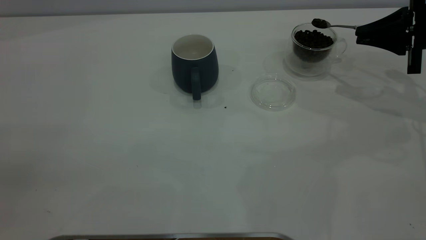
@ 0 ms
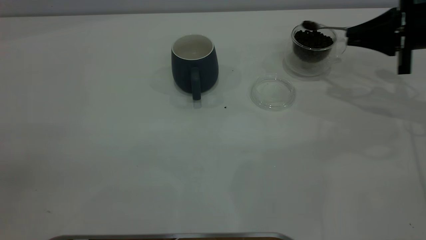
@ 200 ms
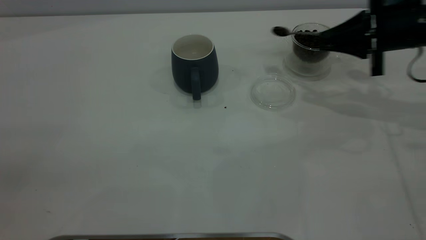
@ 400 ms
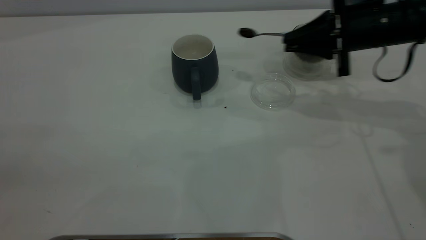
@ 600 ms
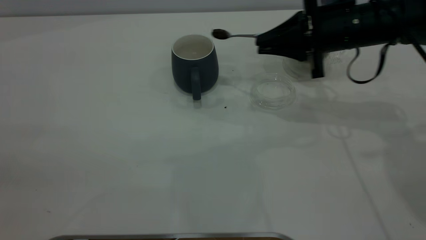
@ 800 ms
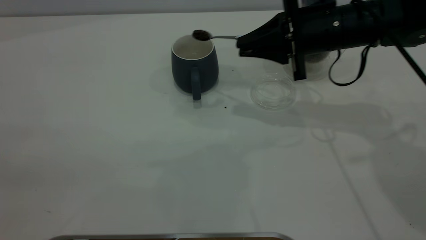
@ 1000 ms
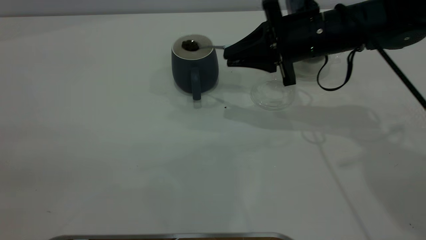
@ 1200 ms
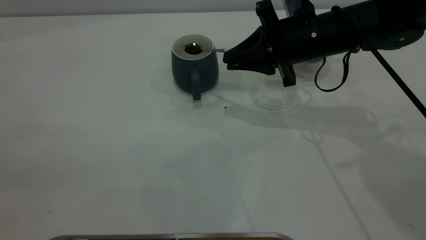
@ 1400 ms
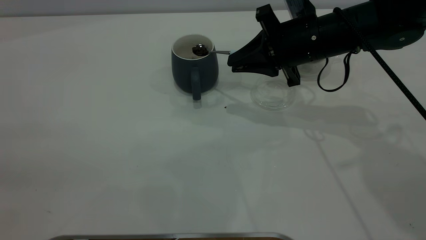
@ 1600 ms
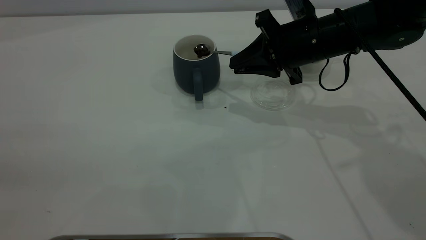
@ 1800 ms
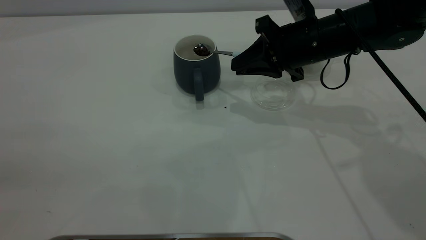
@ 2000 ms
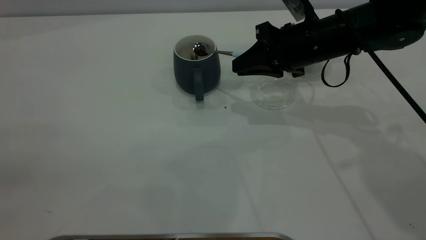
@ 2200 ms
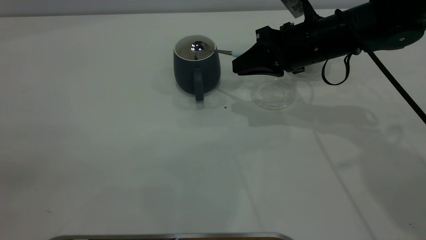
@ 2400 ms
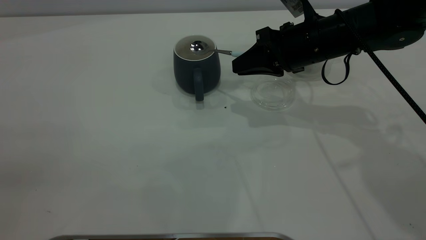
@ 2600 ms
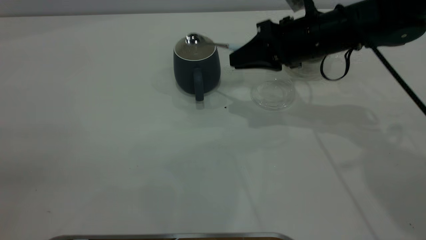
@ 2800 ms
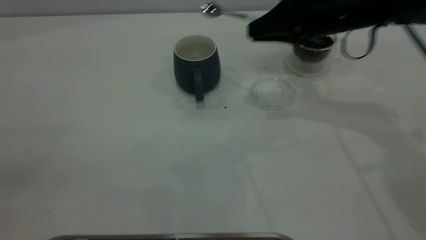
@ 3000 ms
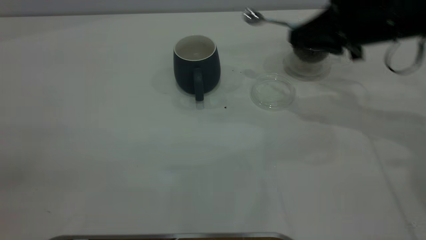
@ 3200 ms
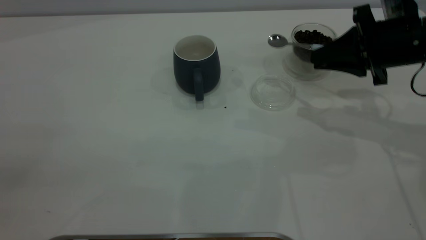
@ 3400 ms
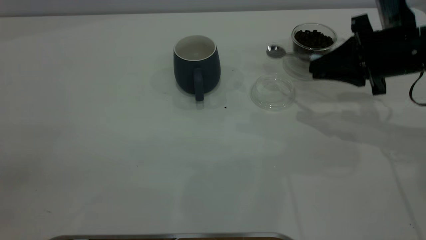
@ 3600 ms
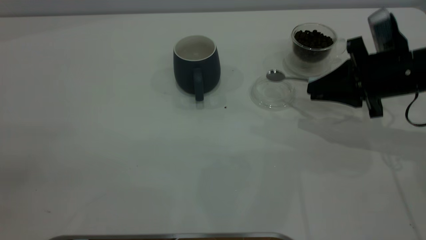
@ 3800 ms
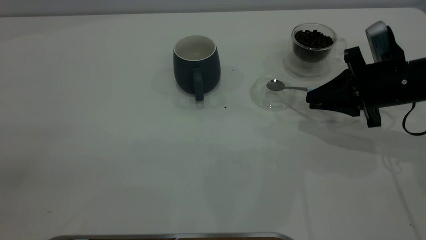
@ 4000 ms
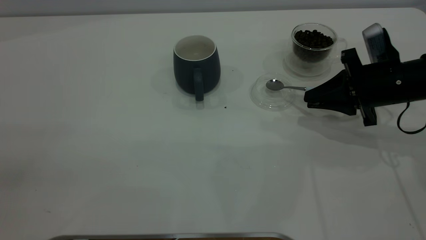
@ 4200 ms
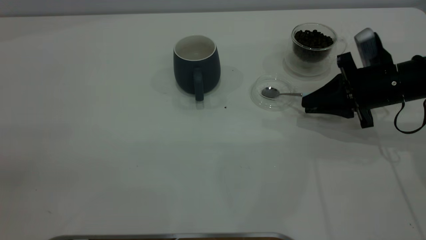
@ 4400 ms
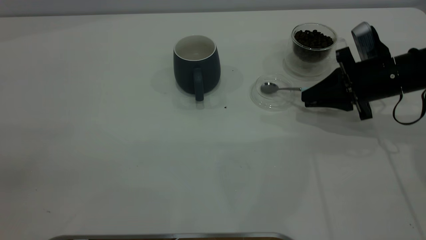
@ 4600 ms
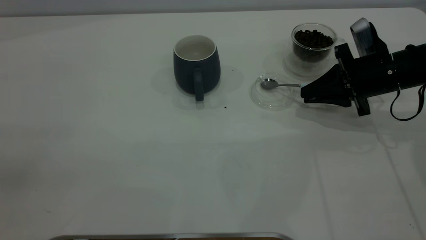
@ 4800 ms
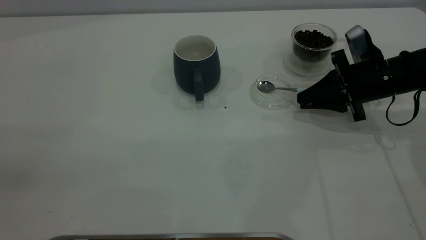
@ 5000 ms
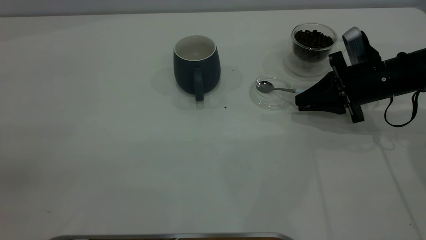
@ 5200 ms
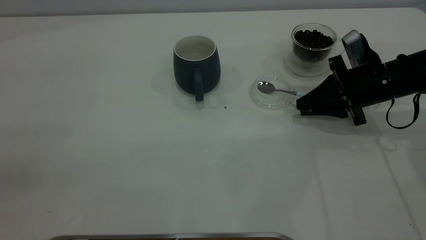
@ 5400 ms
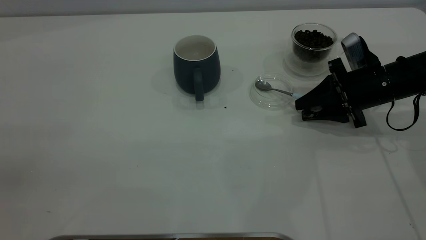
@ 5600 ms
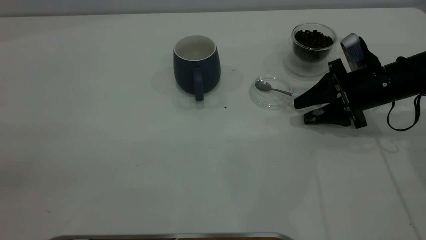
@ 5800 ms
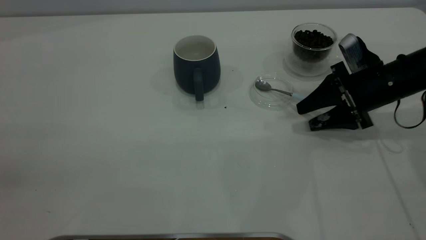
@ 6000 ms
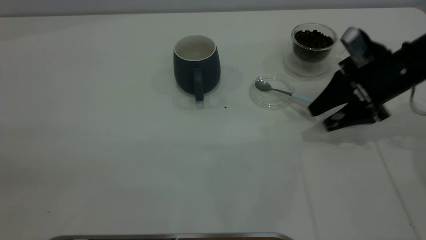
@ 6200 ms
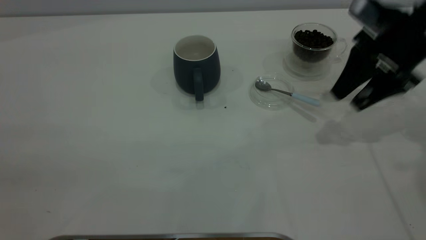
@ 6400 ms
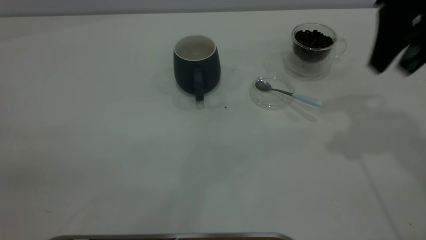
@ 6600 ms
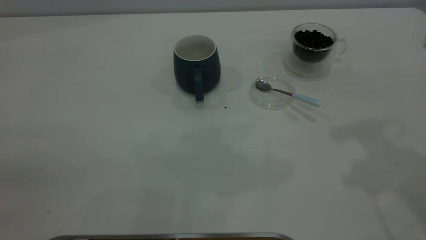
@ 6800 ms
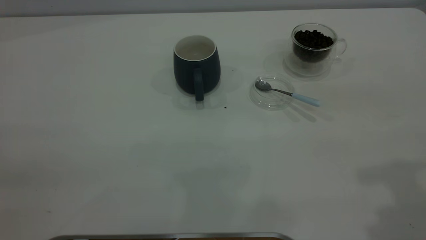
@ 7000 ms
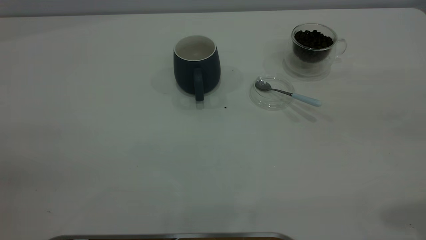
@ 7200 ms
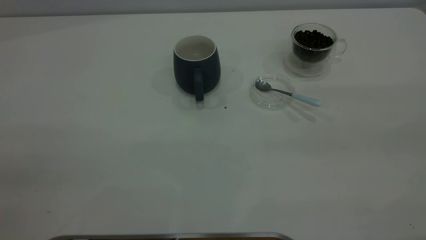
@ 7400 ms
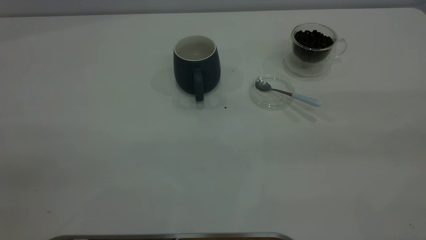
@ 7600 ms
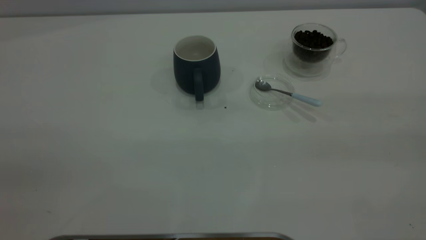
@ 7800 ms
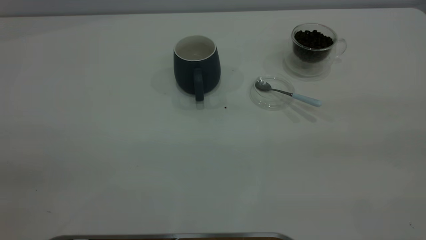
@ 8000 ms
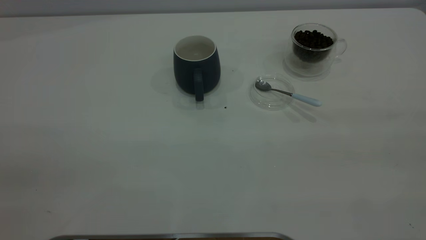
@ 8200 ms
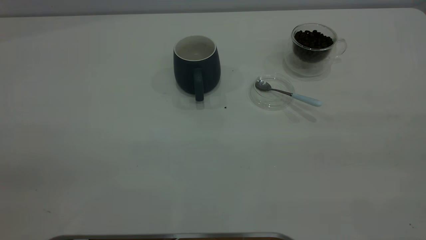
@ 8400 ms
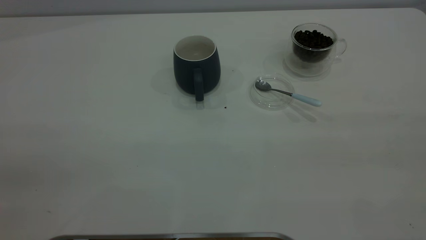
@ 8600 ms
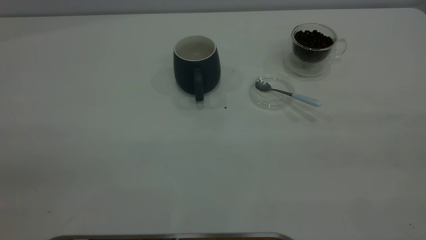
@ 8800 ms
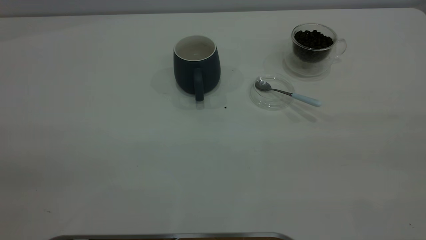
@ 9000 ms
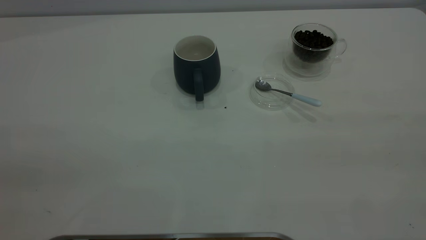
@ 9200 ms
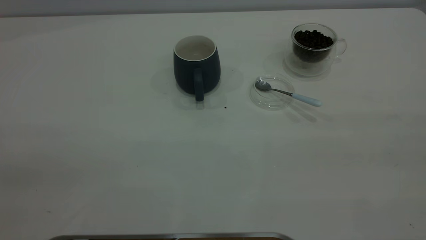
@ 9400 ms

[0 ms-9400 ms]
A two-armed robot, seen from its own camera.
Task of the whole recording: the left gripper place the grey cup in the center of the table, the right gripper take the blue spoon from the cup lid and scoop out the coffee beans from the coffee cup and put them into the grey cup, the right gripper put the spoon back into the cup lid.
Step, 0 ms to 2800 ms: Scoop a spoonful of beans into the cup.
Step, 3000 ms to 6200 ms: Place the spoon back in its original place.
0 ms to 1600 ms: The right gripper heads to the left, covering roughly 20 cm.
1600 ms to 3200 ms: The right gripper heads to the right, covering approximately 10 cm.
3200 ms to 4800 ms: The right gripper heads downward, covering roughly 10 cm.
4800 ms to 6200 ms: The right gripper opens its fingers.
6200 ms to 7800 ms: The right gripper goes some 40 cm backward and upward.
